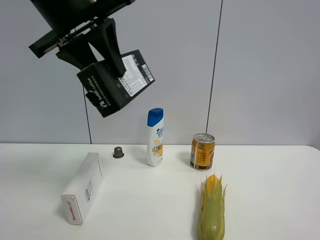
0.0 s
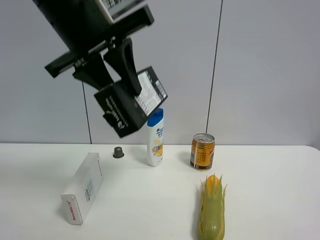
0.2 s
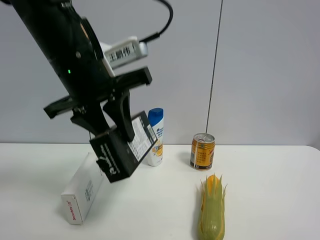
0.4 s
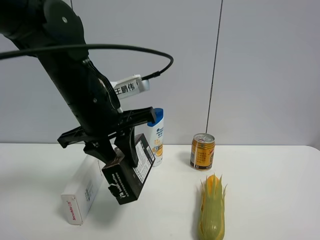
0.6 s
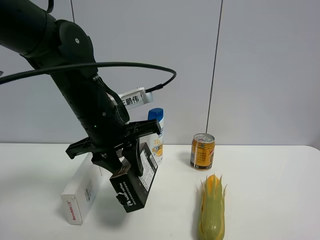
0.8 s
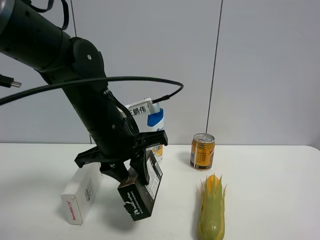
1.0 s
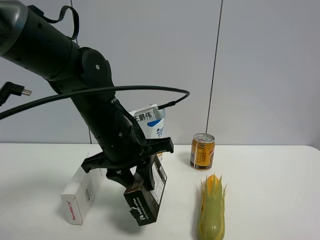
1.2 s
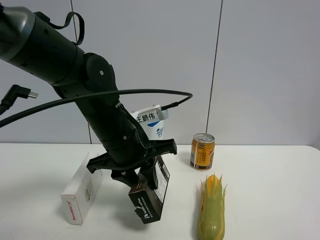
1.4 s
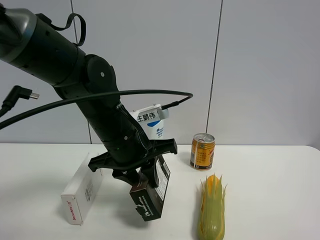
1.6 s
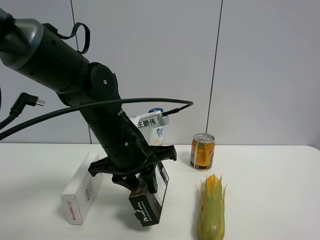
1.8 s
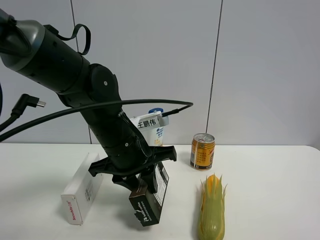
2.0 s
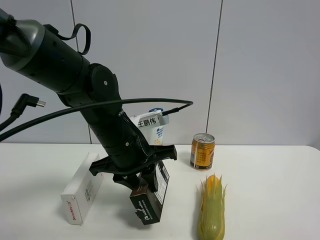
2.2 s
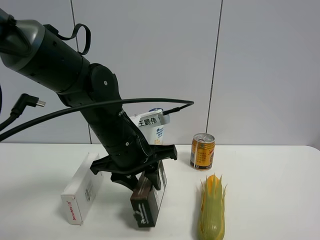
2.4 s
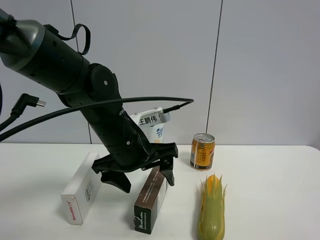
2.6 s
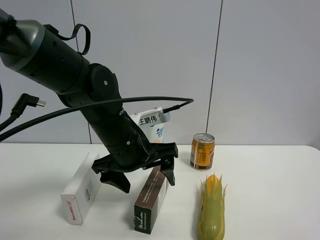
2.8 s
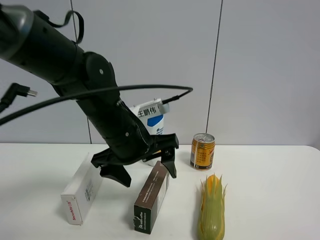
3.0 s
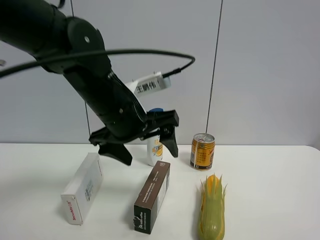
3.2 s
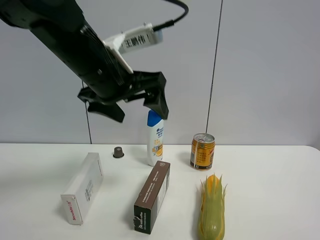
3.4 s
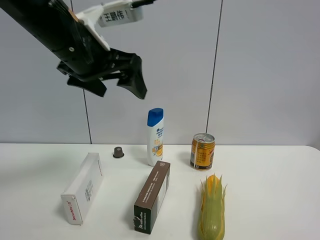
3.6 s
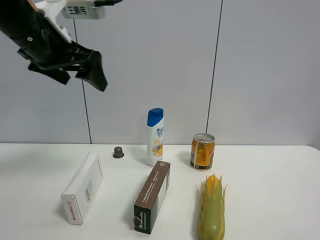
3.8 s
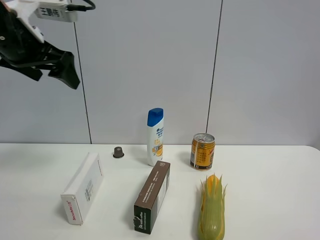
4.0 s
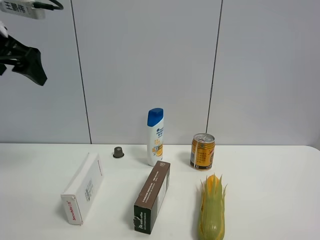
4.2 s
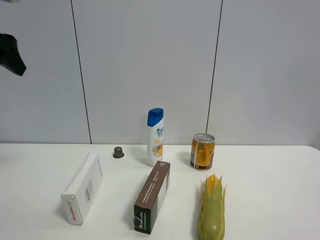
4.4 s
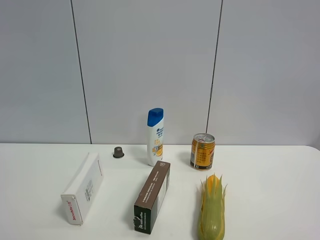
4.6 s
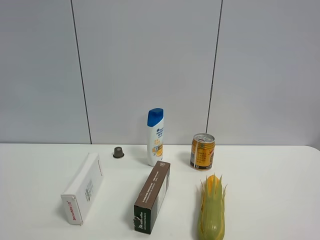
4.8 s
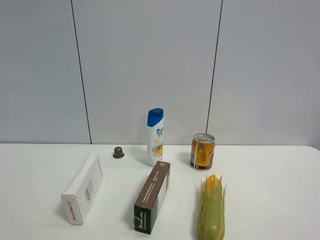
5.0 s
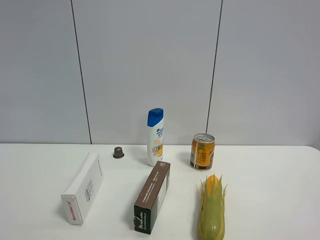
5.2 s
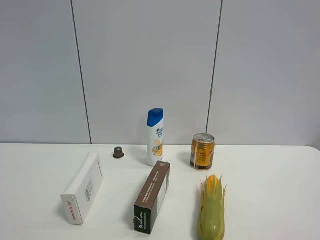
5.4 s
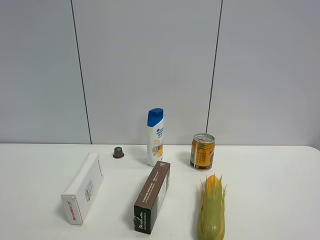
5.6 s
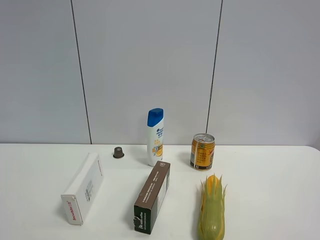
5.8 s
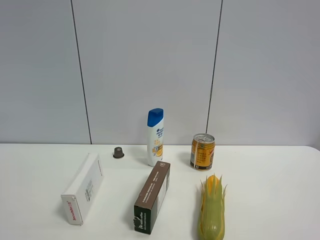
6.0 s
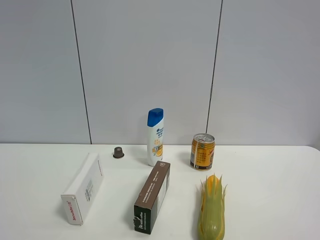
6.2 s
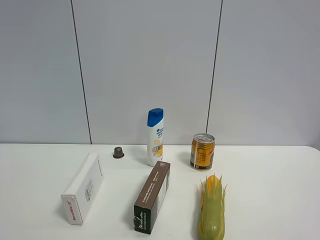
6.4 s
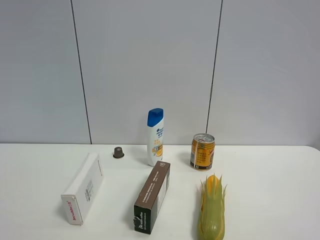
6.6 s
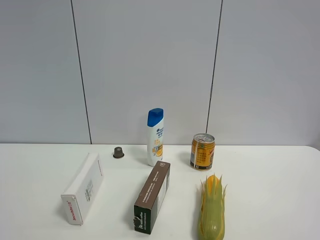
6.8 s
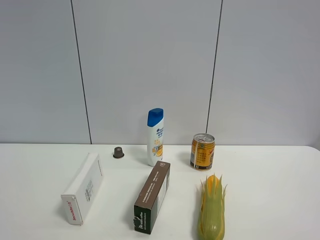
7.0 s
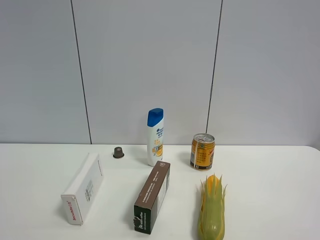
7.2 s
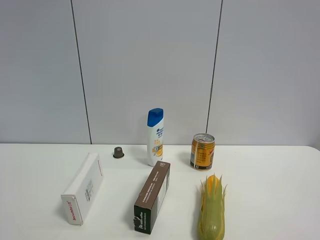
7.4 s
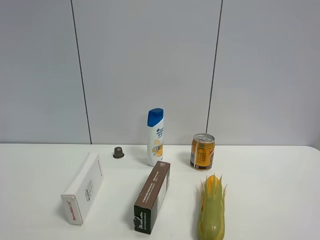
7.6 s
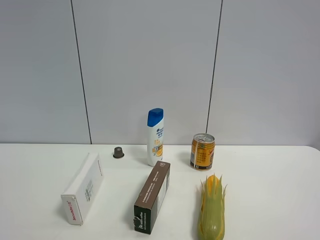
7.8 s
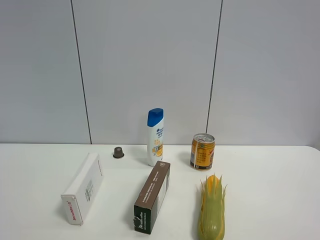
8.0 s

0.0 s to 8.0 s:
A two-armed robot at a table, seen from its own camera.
Task of the whole recording: the gripper move the object.
Step, 0.0 to 2.4 s: Place the brown box on the table with the left gripper.
0.0 to 1.6 s: The left gripper travels downward by approximately 20 cm.
1.6 to 3.2 s: The left gripper heads upward, covering about 5 cm, and opens.
3.2 to 4.8 s: The left gripper heads to the left, upward and backward, covering roughly 30 cm.
6.4 to 8.0 s: Both grippers stay about where they are.
